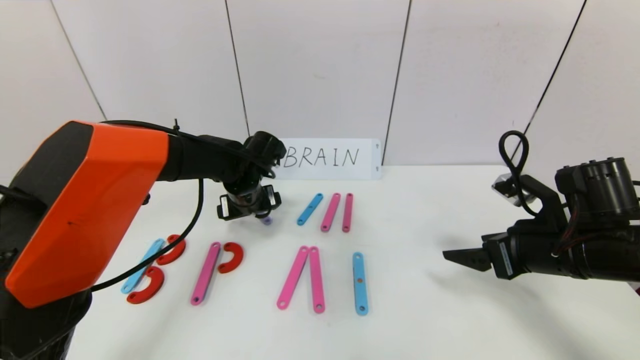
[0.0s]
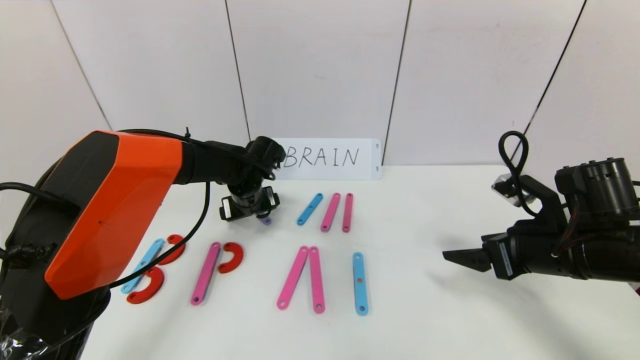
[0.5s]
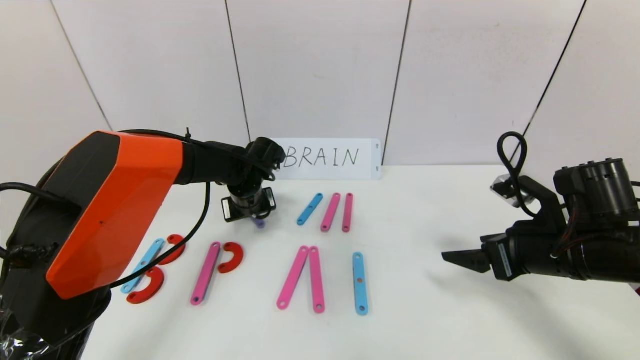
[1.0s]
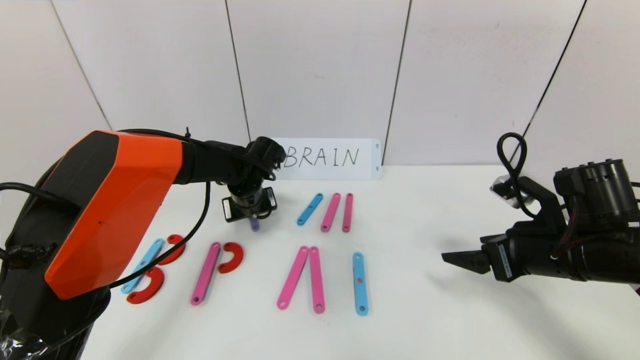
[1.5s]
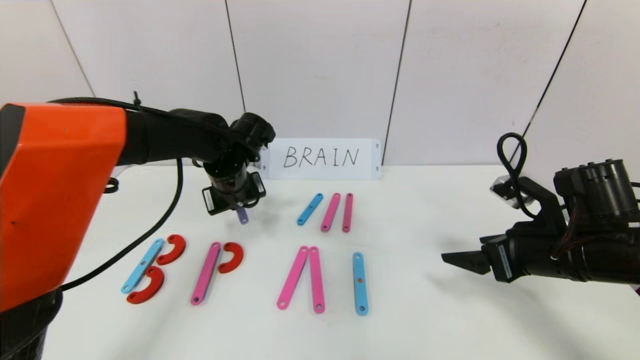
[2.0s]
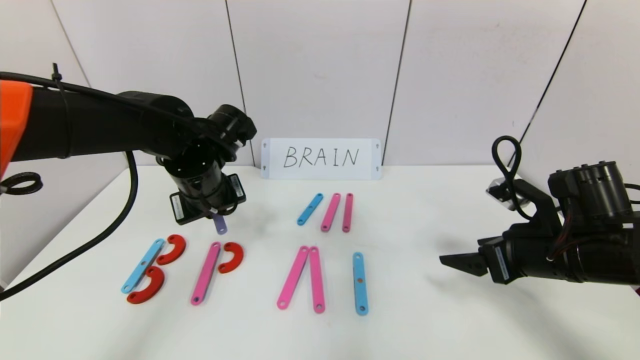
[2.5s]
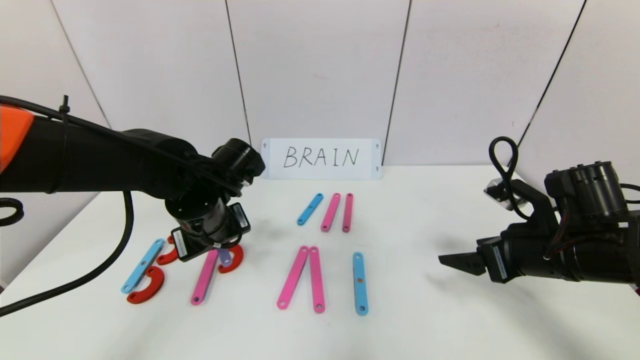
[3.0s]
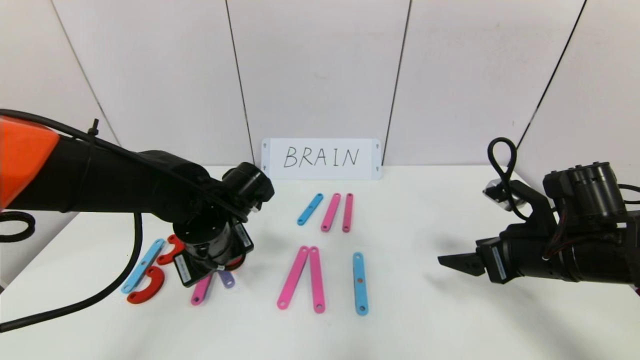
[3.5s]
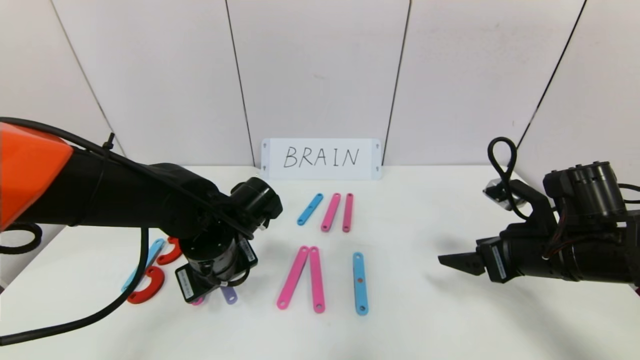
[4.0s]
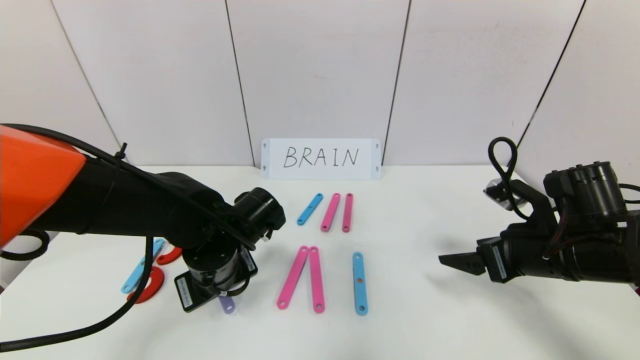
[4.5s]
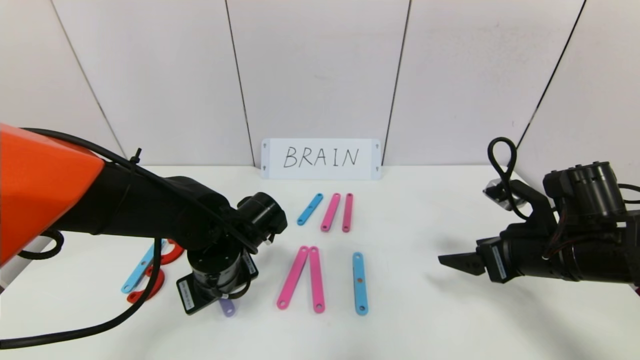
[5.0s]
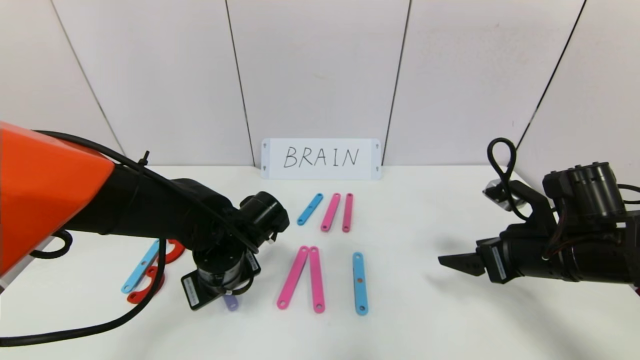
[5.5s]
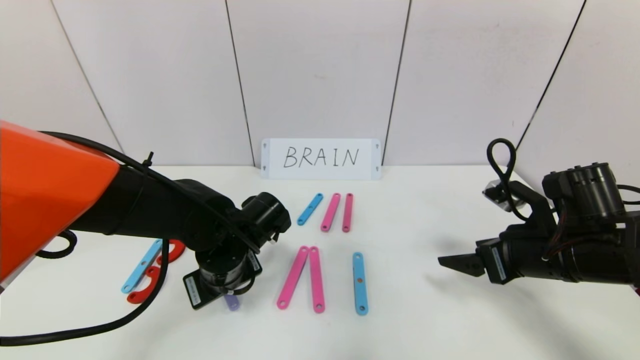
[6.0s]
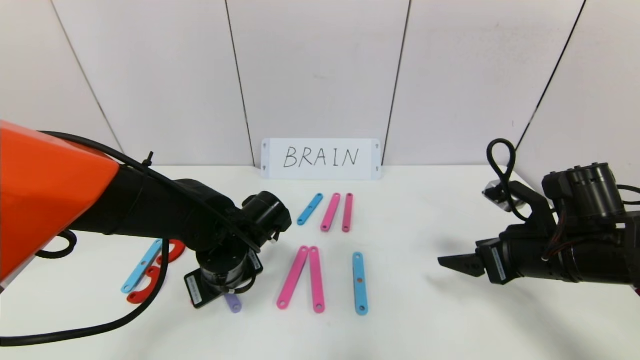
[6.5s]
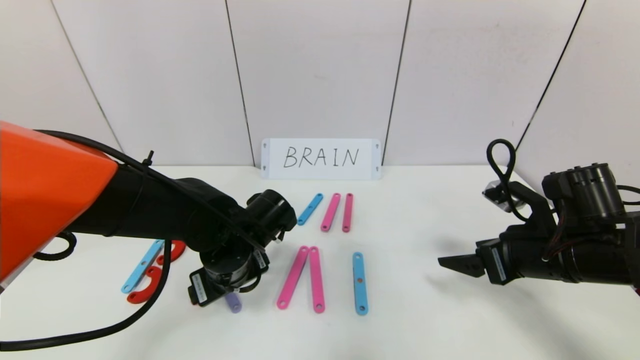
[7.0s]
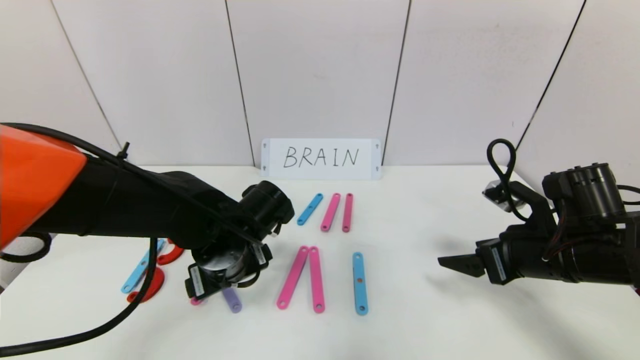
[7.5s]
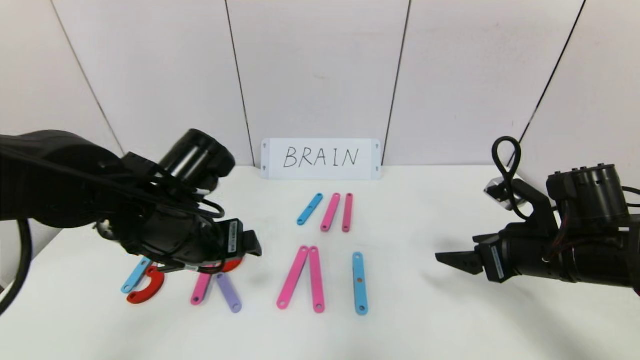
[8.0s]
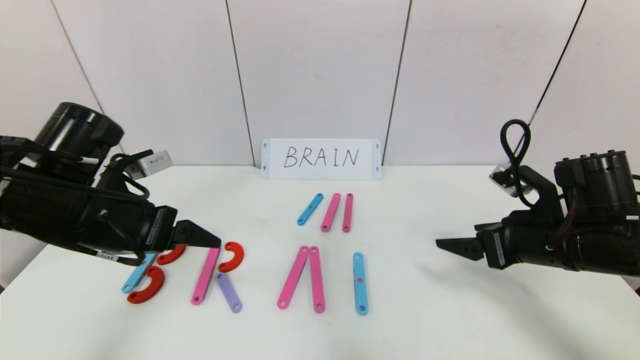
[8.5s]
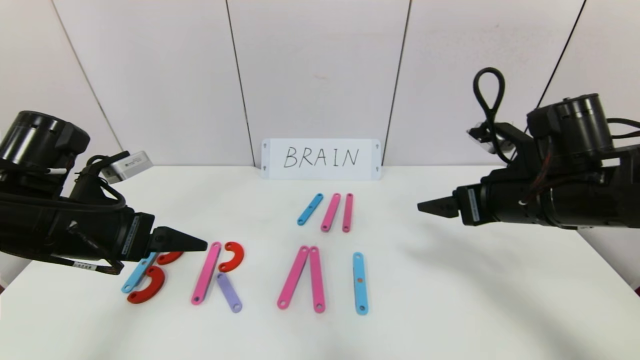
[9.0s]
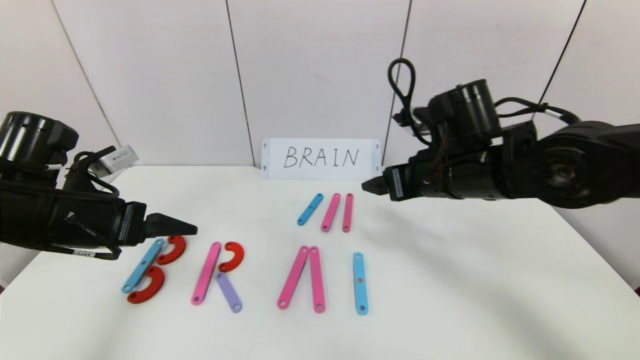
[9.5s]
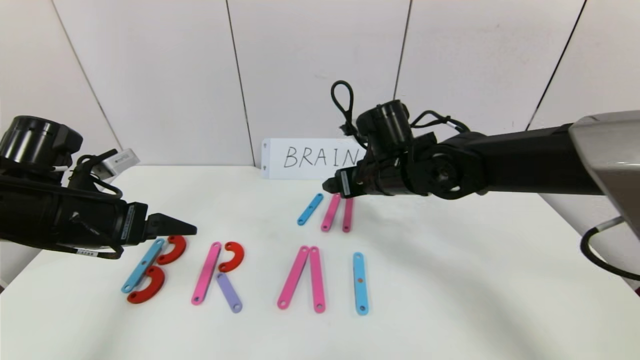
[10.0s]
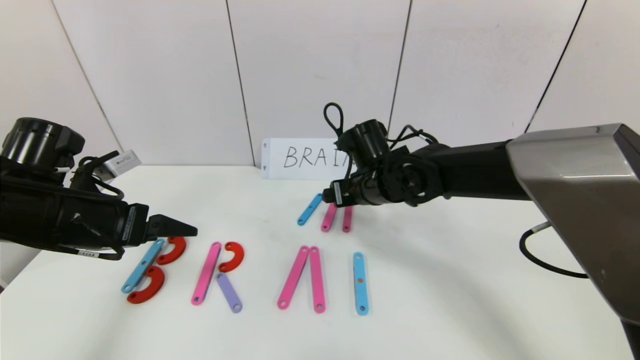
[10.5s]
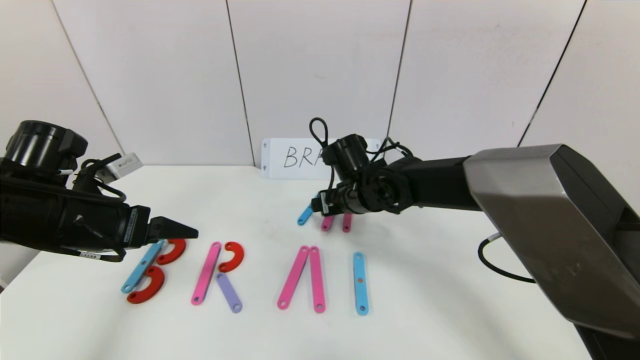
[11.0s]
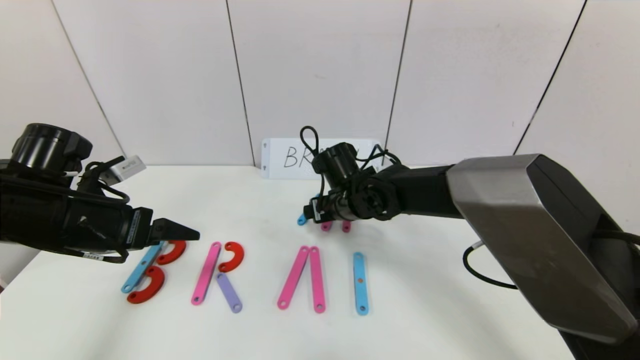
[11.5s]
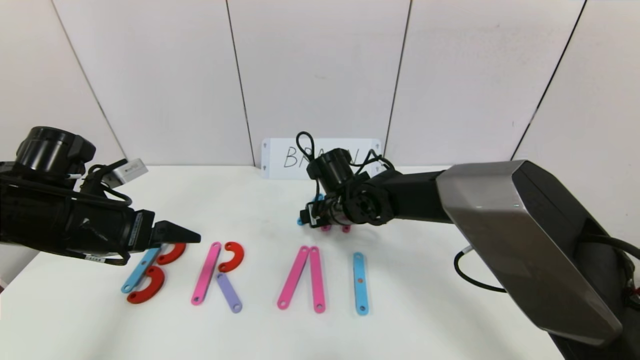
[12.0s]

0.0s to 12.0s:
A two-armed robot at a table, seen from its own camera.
Task of the whole recording: rearrange the word baai as brain.
Step, 0.0s to 7.0s: Place the character R between first character B and third character A.
0.0s to 2.0s: The left gripper closes up.
2.0s to 4.0s: The left gripper moves backward, about 10 cm.
4.0s to 6.0s: The grippers move only a little.
6.0s to 8.0s: The left gripper heads upward, covering some 10 cm, and opens its fingers.
8.0s to 10.0s: The right gripper shifts some 20 cm to the left and forward. Meanwhile the left gripper goes approximately 15 cm to the left.
10.0s to 12.0s: The right gripper goes approximately 10 cm downward and to the left.

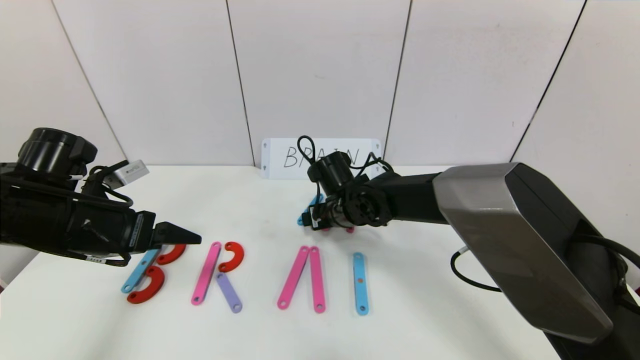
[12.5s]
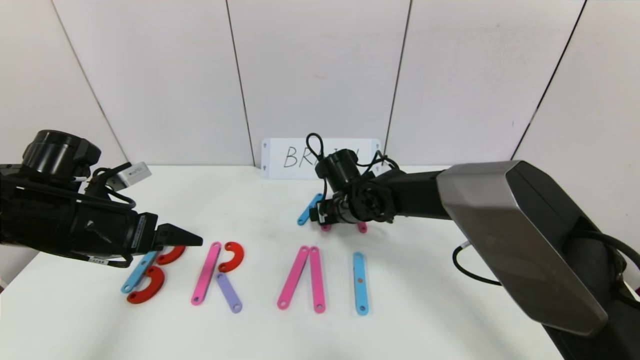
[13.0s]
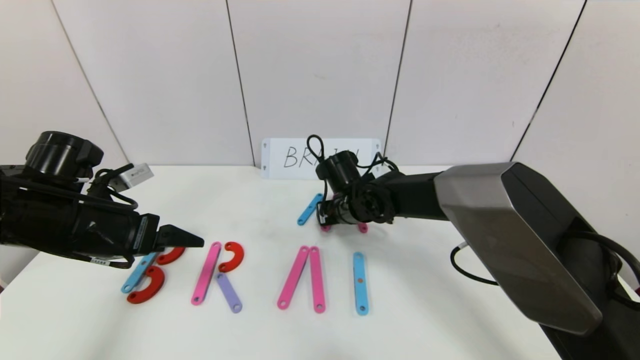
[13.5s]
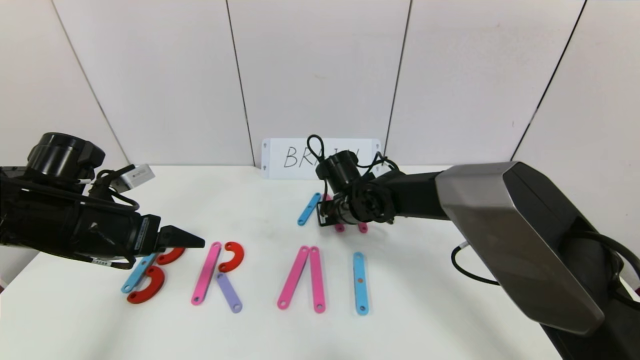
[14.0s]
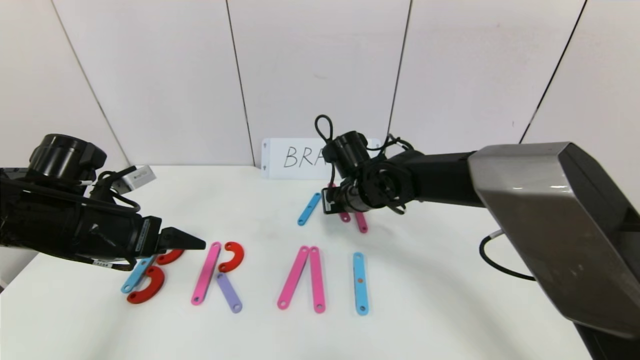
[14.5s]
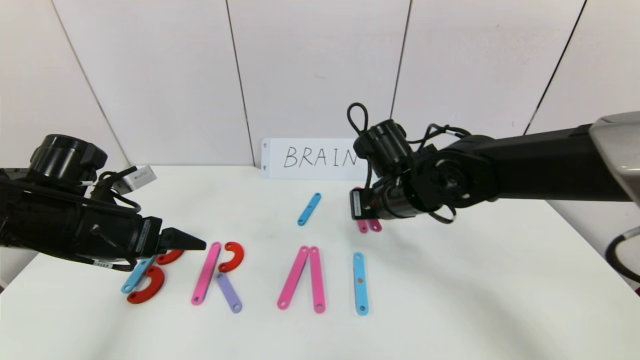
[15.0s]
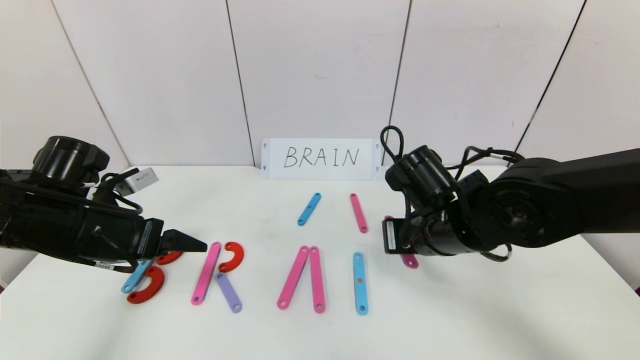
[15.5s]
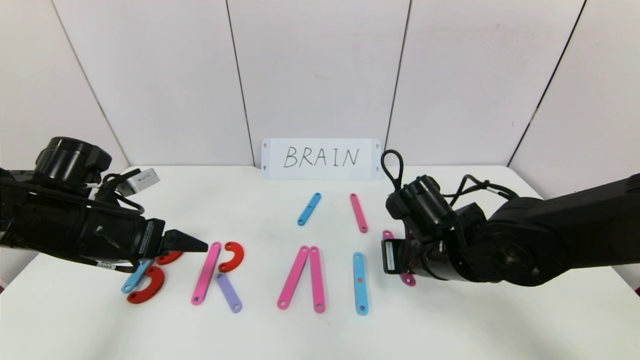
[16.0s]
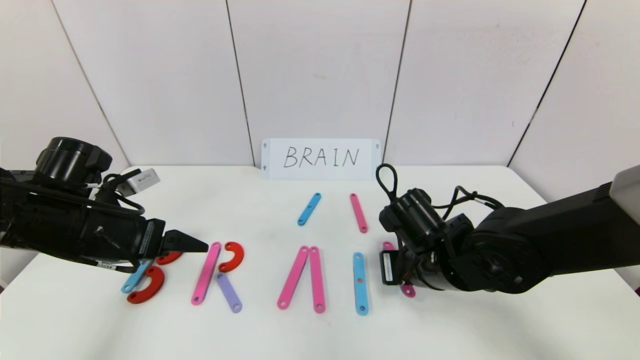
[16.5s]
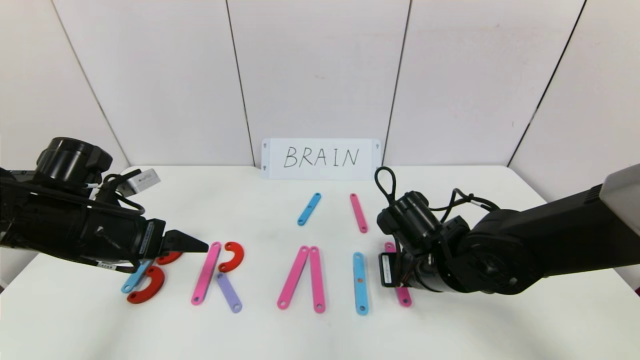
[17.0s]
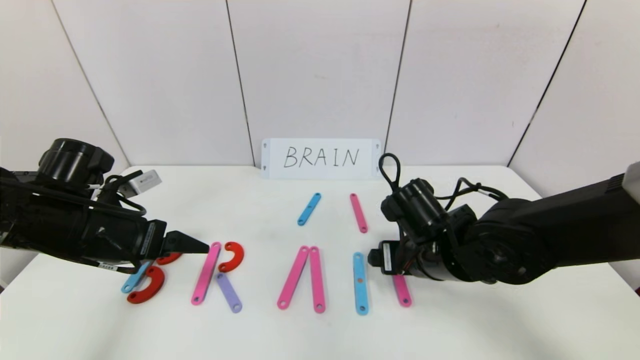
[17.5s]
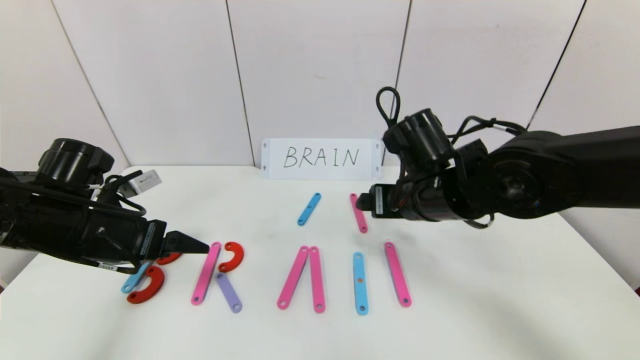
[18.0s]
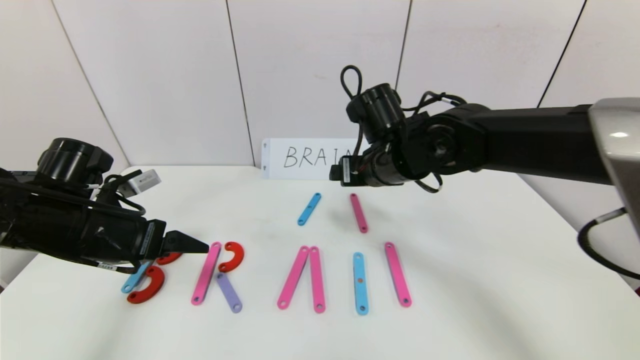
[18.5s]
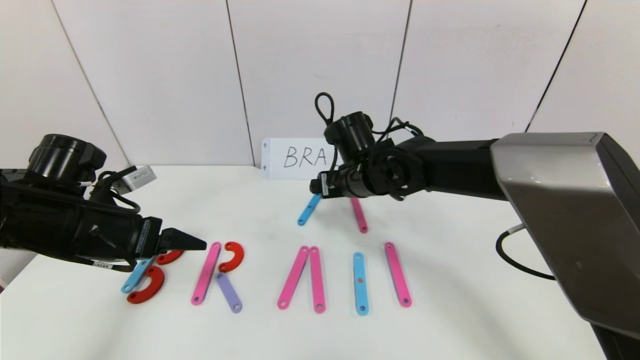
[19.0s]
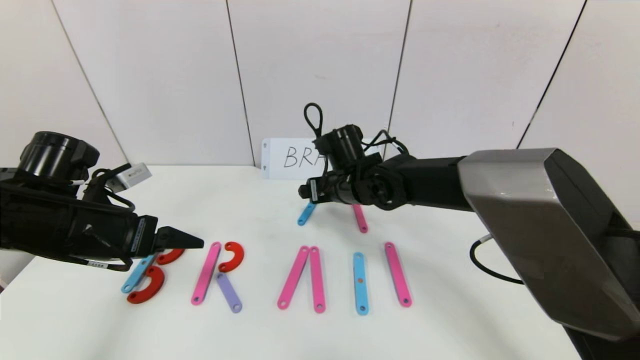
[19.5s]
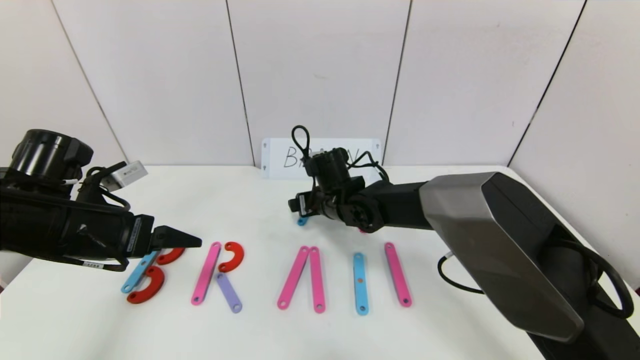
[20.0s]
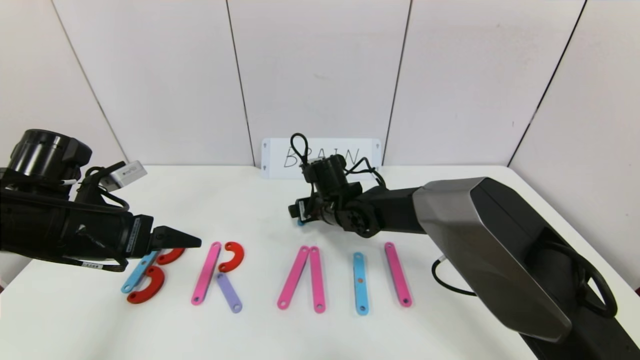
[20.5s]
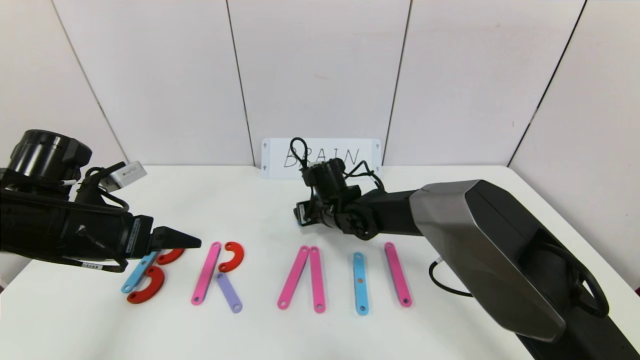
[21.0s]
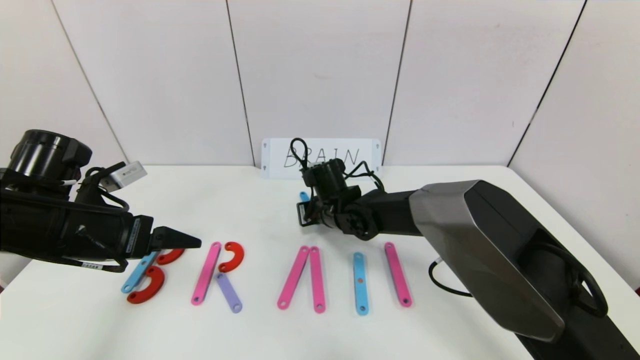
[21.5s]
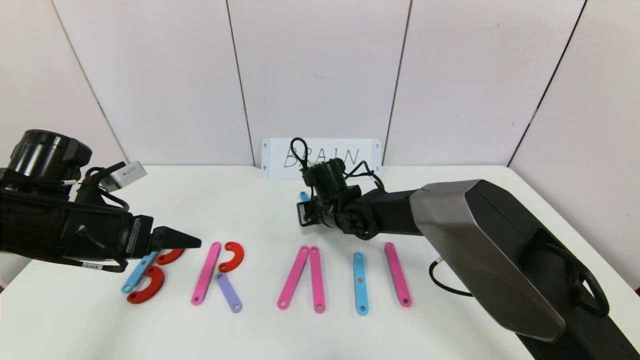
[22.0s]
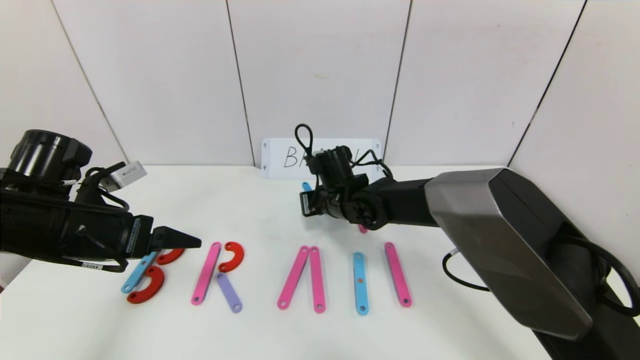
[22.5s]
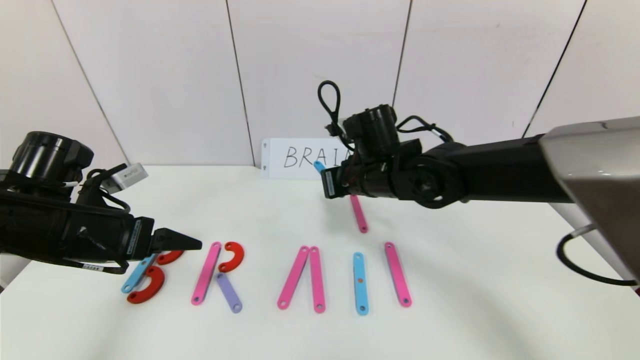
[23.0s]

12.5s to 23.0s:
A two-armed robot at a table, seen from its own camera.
Task of the whole recording: rearrange the word baai as brain.
12.5s to 14.5s: The right gripper moves some 5 cm, and closes.
14.5s to 16.5s: The right gripper travels backward and to the right by some 15 cm.
16.5s to 19.0s: The right gripper goes about 15 cm forward, to the left and upward, and opens its fingers.
19.0s to 21.0s: The right gripper goes roughly 10 cm downward, and closes up.
21.0s to 23.0s: The right gripper shifts some 15 cm upward, to the right and backward, and closes up.
